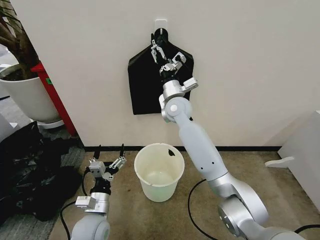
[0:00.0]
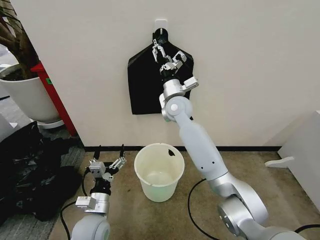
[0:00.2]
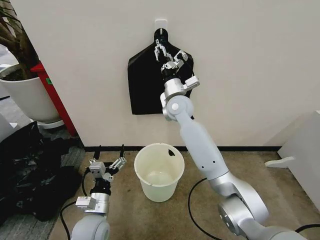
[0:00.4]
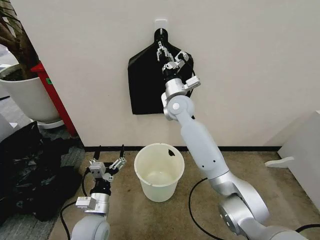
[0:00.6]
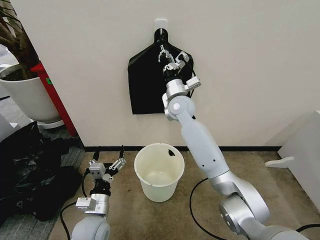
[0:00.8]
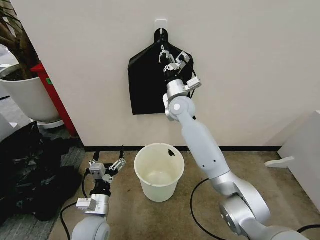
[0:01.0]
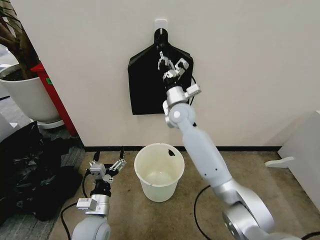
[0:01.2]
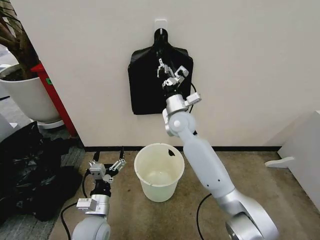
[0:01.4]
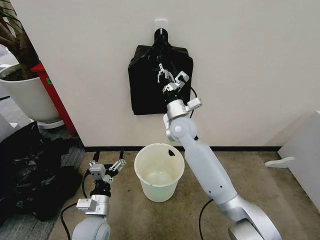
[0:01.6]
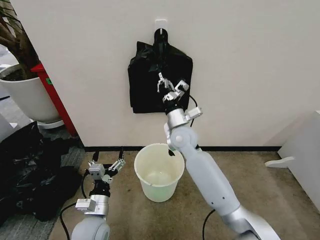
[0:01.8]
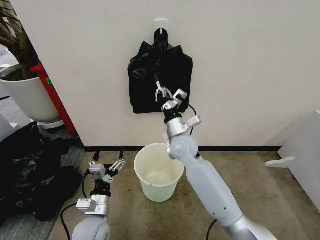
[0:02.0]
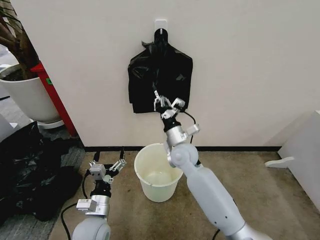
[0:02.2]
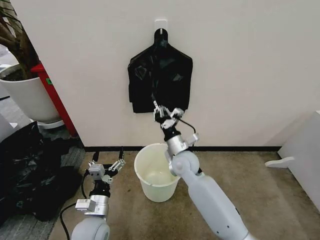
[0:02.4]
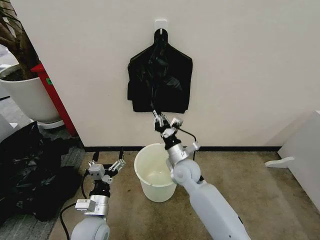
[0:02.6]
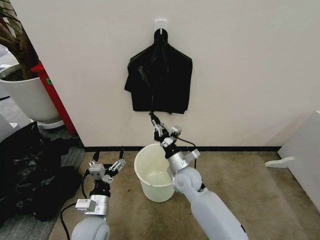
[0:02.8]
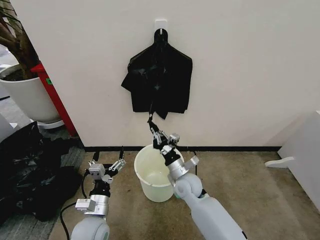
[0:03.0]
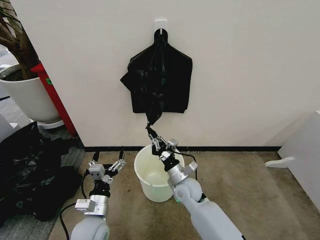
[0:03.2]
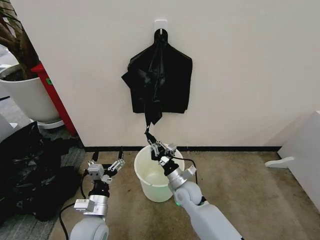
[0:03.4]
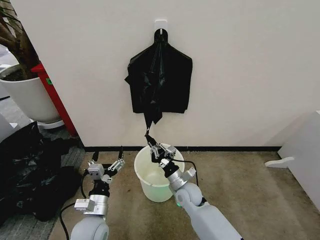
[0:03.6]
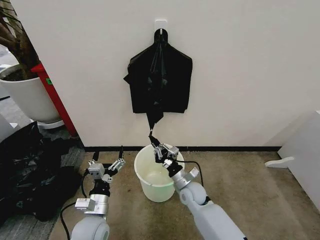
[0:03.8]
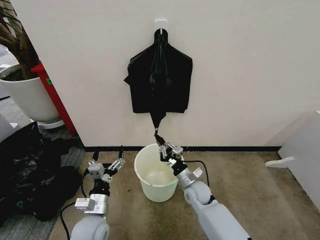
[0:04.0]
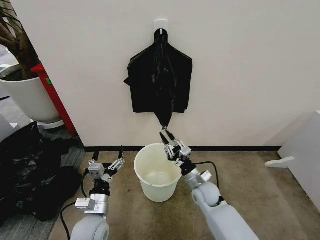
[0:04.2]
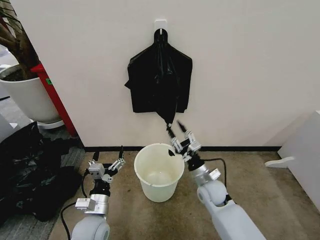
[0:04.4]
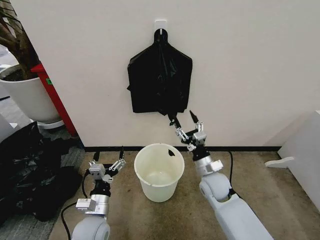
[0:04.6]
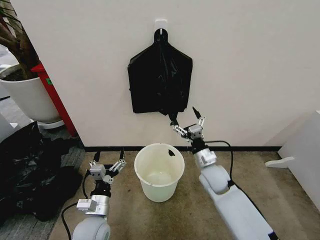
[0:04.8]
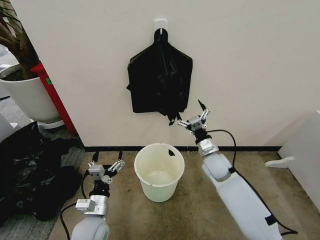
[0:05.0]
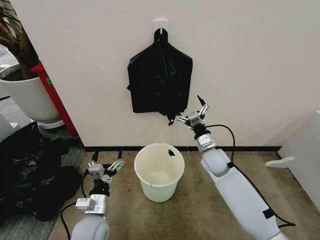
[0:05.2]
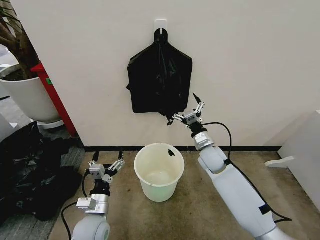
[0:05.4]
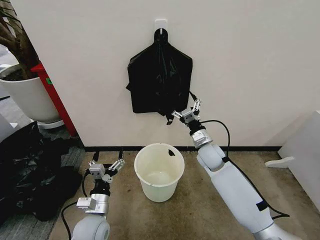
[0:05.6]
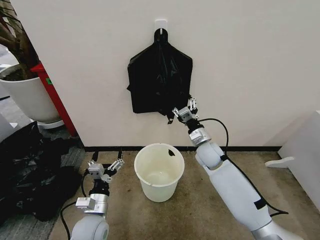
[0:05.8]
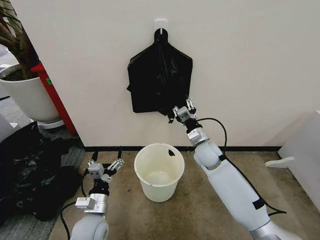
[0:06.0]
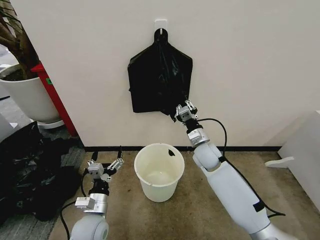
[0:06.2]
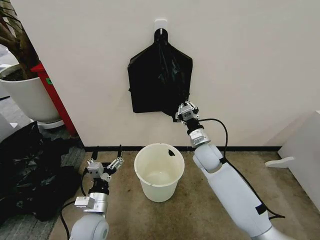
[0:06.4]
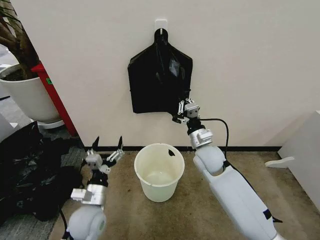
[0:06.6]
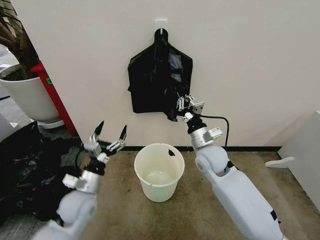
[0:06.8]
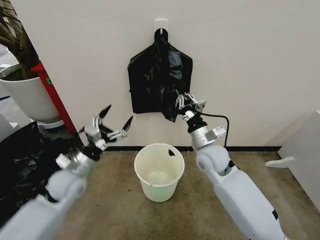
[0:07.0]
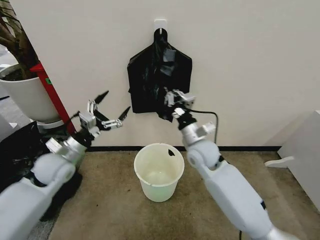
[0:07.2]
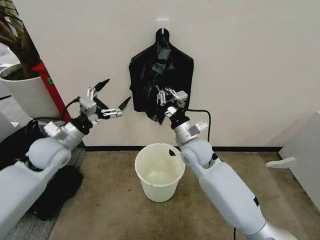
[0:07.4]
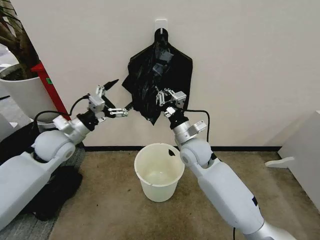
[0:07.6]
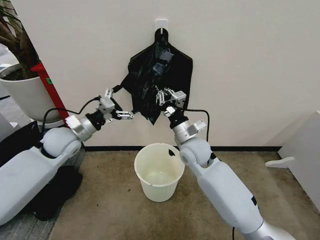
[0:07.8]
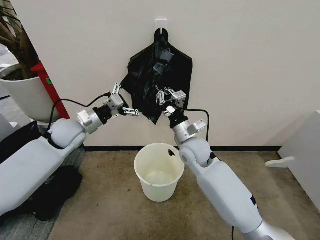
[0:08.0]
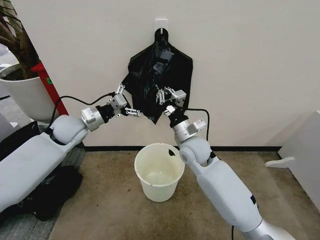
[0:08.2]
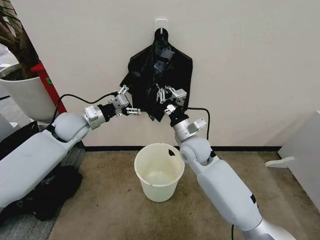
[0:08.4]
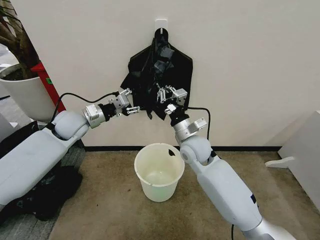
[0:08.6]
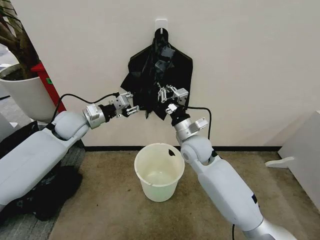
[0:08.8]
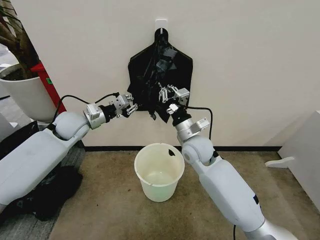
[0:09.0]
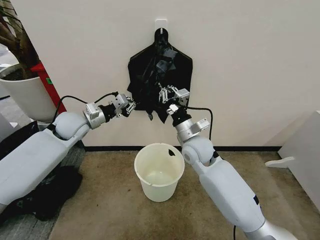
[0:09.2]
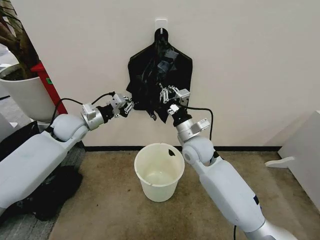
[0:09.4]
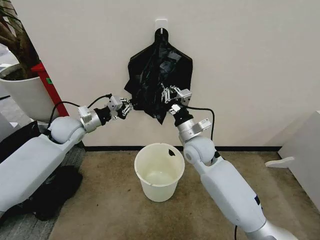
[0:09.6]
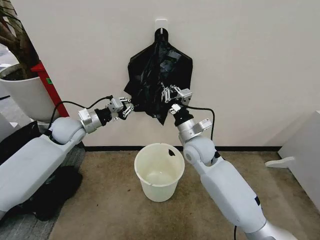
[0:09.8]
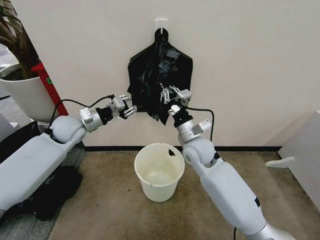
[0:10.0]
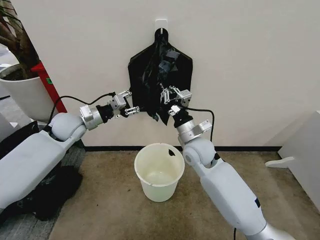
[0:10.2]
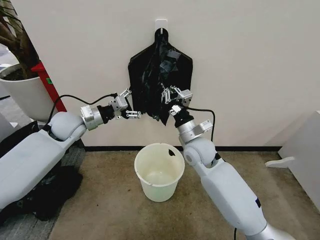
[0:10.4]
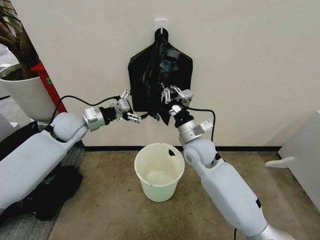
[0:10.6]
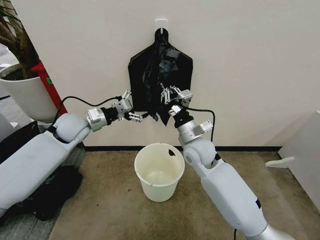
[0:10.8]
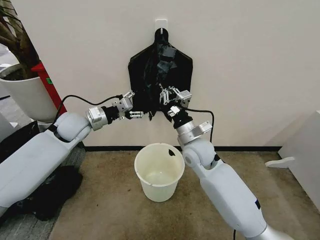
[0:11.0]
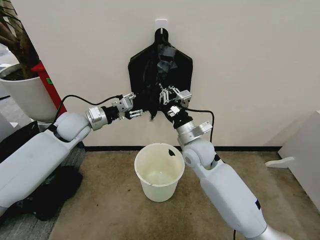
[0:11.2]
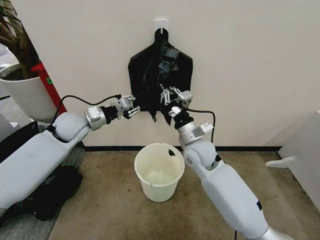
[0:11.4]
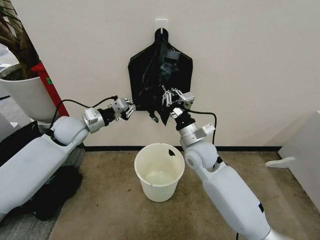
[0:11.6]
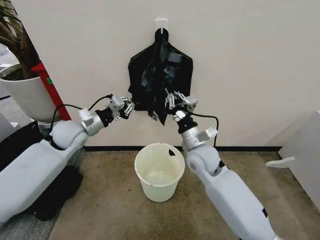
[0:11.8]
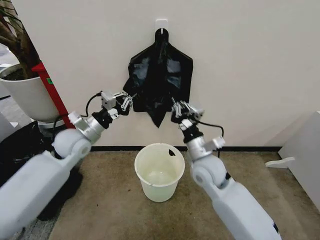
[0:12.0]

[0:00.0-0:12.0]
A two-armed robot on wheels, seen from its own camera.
Task of the whole recording: Place the garbage bag over the trash bin.
0.0 to 1.6 s: The right gripper is displaced downward and backward by approximately 5 cm, and closes up.
1.6 to 3.0 s: The right gripper is displaced downward and backward by about 20 cm.
3.0 to 4.4 s: The right gripper moves to the right, approximately 10 cm, and opens.
4.4 to 6.0 s: The right gripper travels forward and upward by approximately 15 cm, and opens and closes again.
6.0 to 7.6 s: The right gripper heads upward and to the left, covering approximately 10 cm, and closes. Meanwhile the left gripper heads upward, forward and to the left, covering roughly 30 cm.
7.6 to 9.0 s: The left gripper is displaced forward by approximately 10 cm, and closes its fingers.
9.0 to 10.4 s: The left gripper opens up.
10.4 to 12.0 s: The grippers both shift backward by about 5 cm. The left gripper closes its fingers.

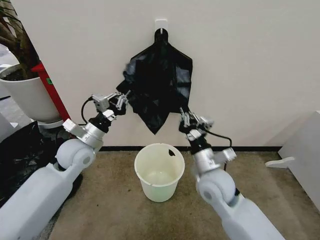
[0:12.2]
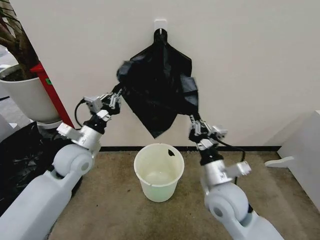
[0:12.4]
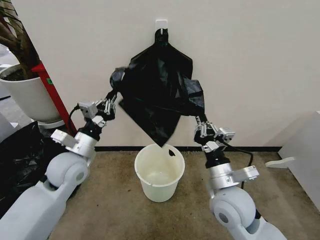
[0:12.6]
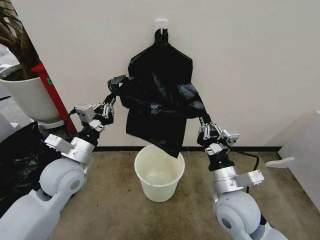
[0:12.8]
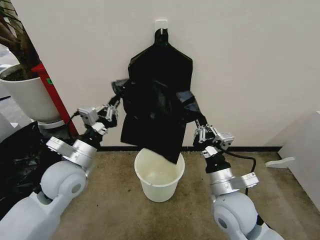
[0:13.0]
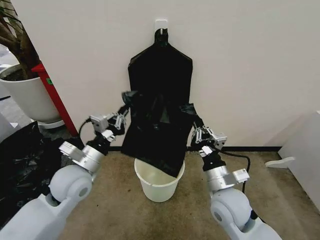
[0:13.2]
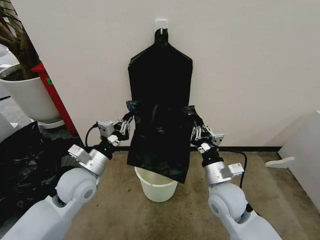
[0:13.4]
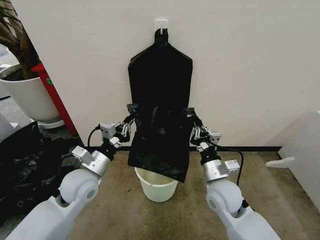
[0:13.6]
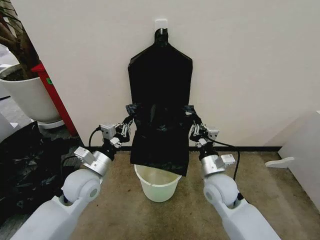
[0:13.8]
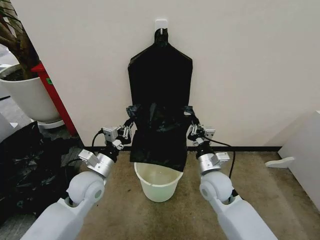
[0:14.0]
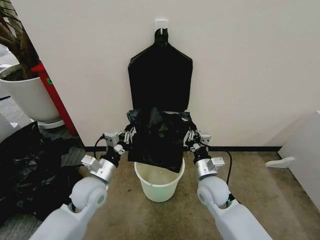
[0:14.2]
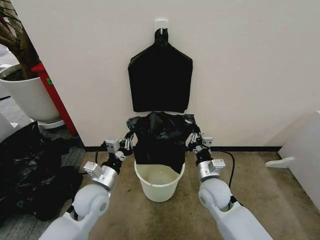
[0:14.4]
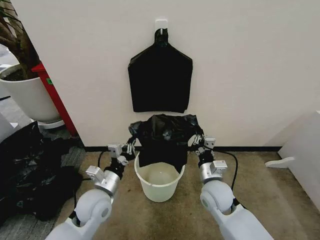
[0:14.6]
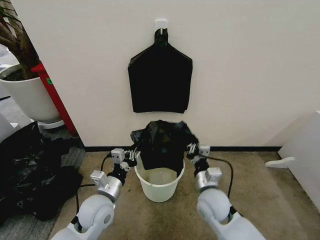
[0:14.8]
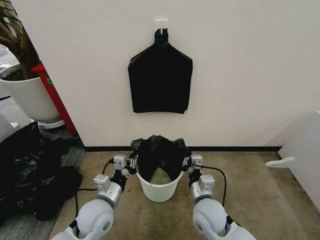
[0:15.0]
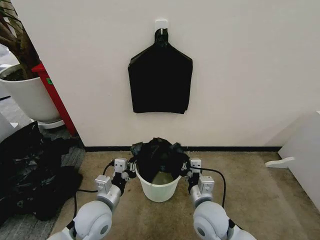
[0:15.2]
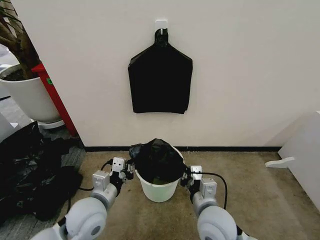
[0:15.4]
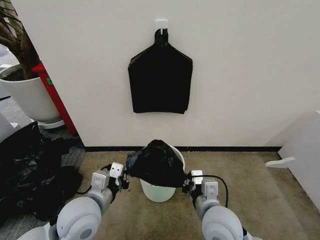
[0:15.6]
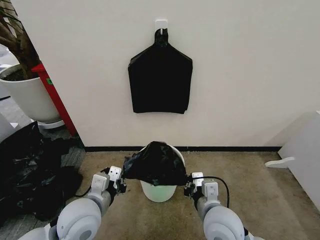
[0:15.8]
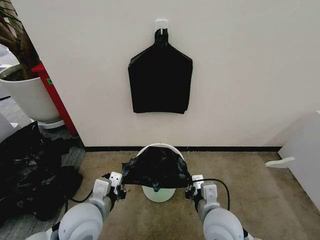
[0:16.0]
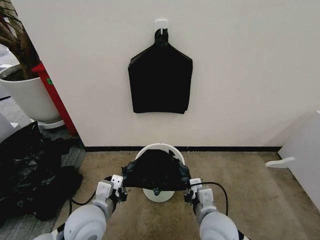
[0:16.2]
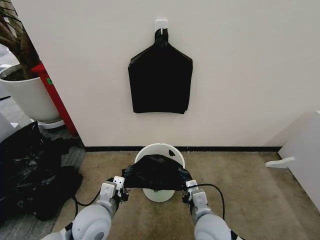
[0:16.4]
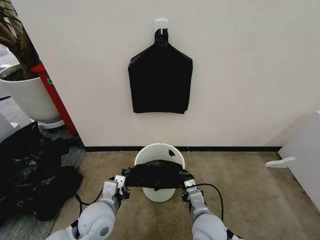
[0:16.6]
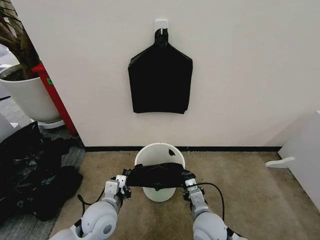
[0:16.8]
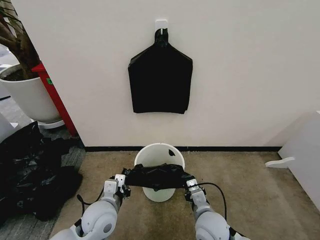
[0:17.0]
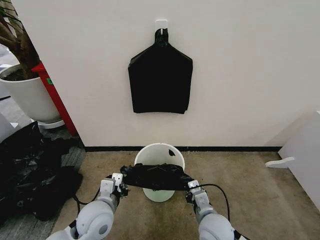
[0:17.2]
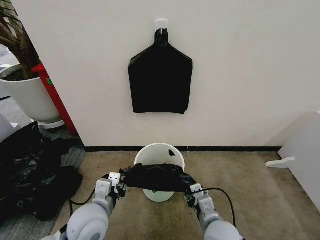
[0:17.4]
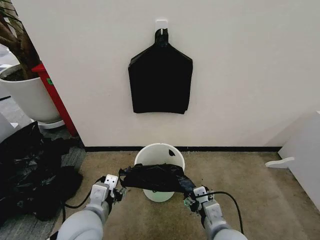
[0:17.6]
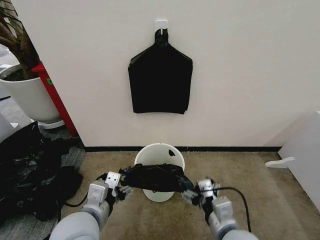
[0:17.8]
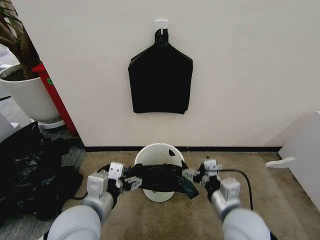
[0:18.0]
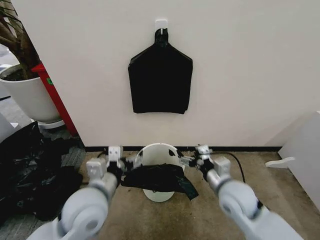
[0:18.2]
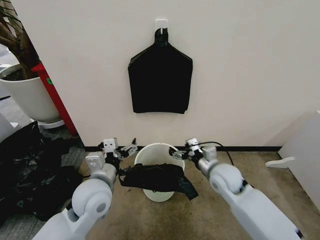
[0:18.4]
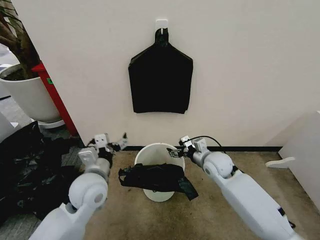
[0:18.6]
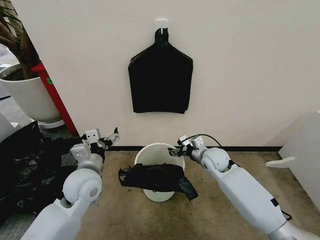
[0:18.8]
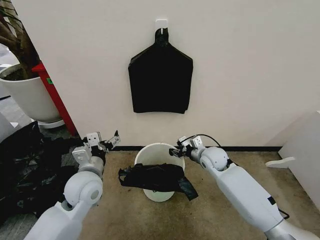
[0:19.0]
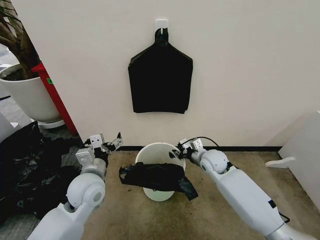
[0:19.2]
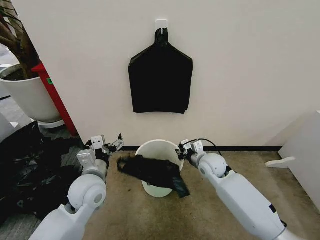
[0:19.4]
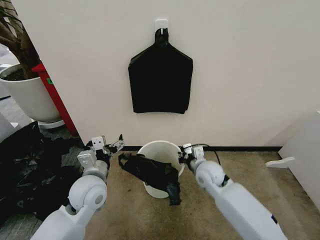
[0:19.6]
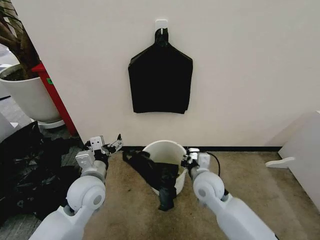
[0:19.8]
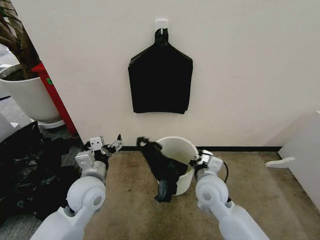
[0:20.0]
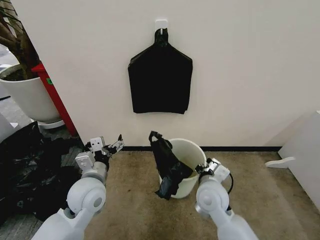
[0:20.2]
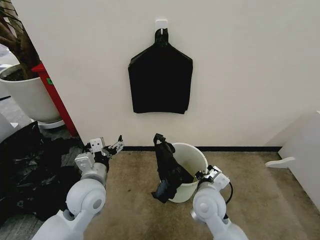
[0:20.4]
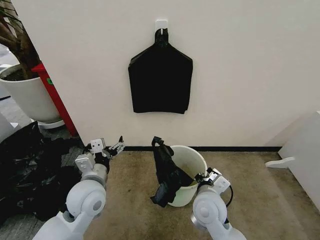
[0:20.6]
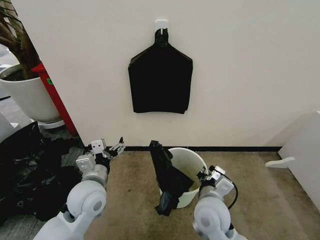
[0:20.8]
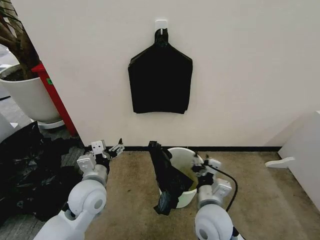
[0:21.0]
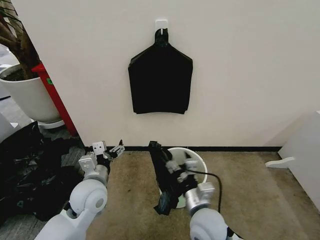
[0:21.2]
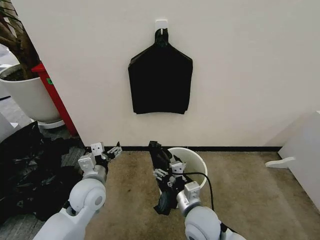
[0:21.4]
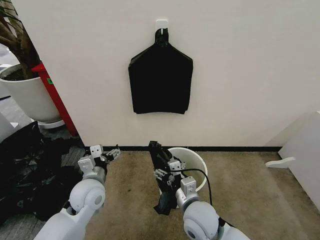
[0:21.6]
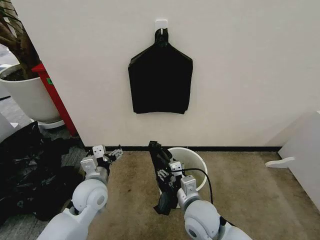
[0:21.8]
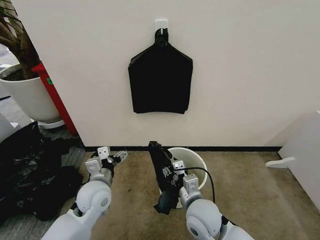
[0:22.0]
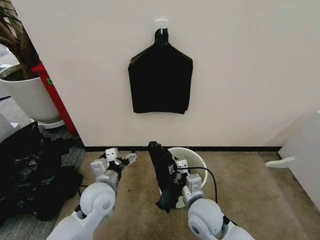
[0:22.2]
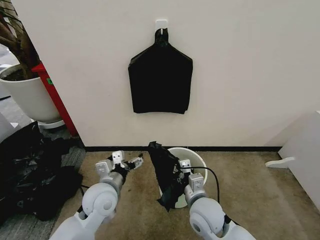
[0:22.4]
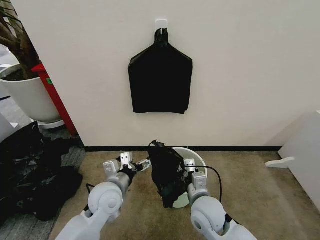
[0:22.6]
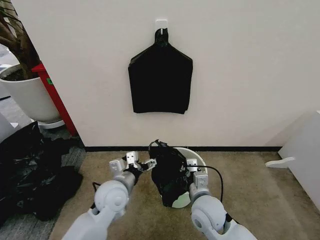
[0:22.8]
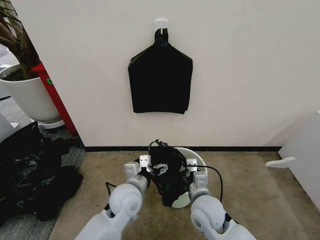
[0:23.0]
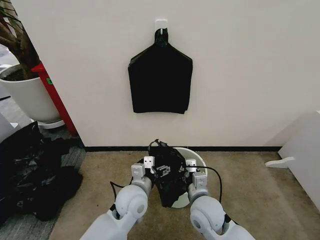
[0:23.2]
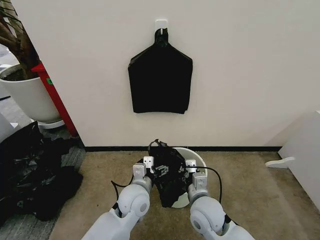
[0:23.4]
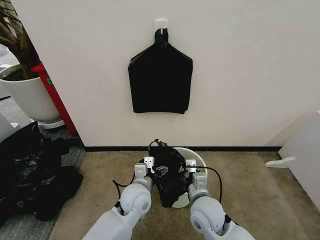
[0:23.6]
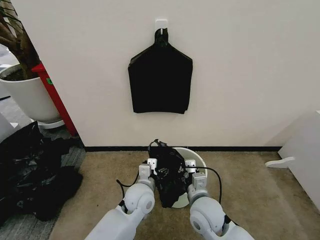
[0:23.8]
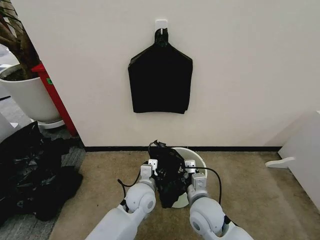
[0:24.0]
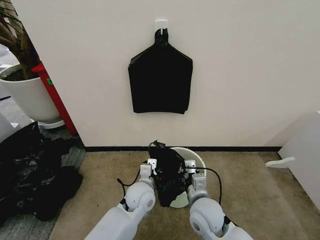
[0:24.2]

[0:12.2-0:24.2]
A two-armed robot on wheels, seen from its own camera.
Task of the whole recording: Place the garbage bag over the trash bin.
12.2 to 13.8 s: The right gripper goes approximately 5 cm downward, and travels backward and back again, some 5 cm each way. The left gripper is displaced backward and downward by some 10 cm.
13.8 to 15.2 s: The right gripper is displaced backward by approximately 10 cm, while the left gripper is displaced backward and downward by some 10 cm.
16.6 to 18.2 s: The left gripper shifts roughly 10 cm upward, and opens up. The right gripper heads upward, to the right and forward, covering about 15 cm, and opens up.
18.2 to 19.8 s: The left gripper is displaced forward and downward by about 10 cm. The right gripper goes roughly 5 cm to the left, reaches roughly 15 cm forward, then returns, and closes up.
19.8 to 21.2 s: The right gripper shifts some 10 cm backward, and opens its fingers.
21.2 to 22.6 s: The right gripper closes up.
22.6 to 24.2 s: The left gripper moves to the right and downward, roughly 10 cm, and closes up.
